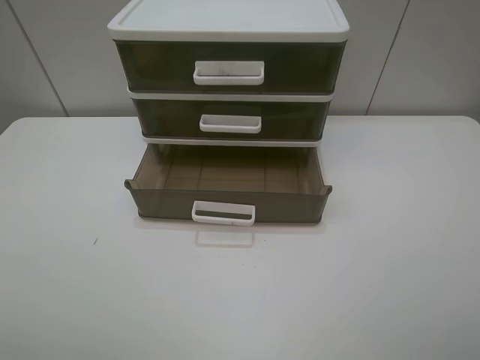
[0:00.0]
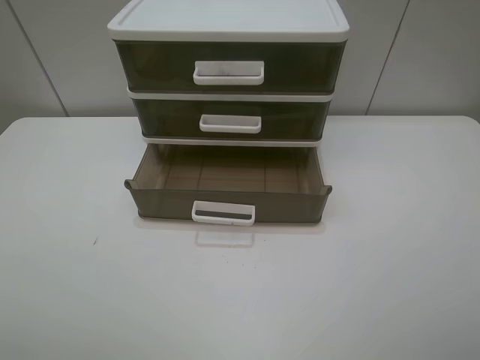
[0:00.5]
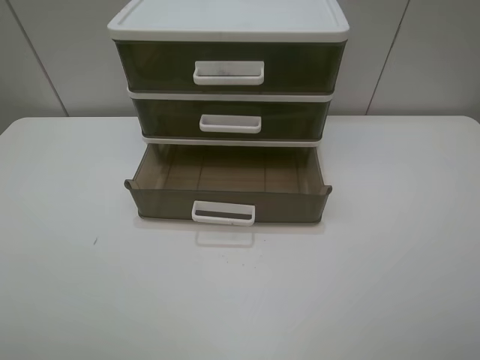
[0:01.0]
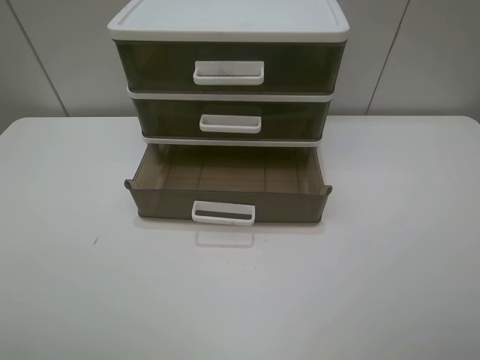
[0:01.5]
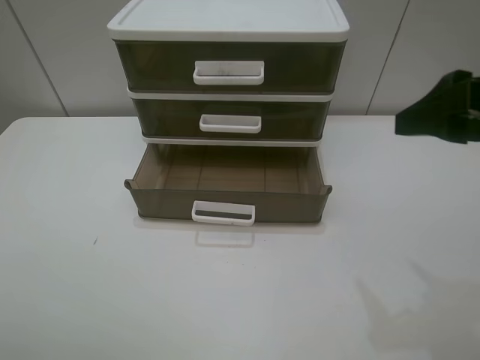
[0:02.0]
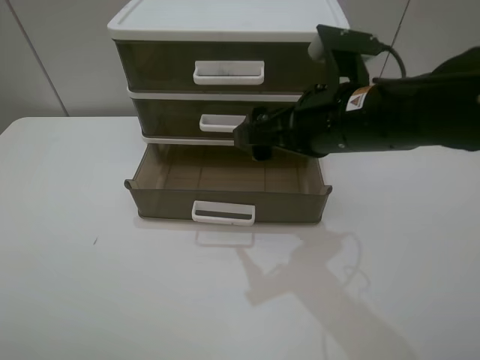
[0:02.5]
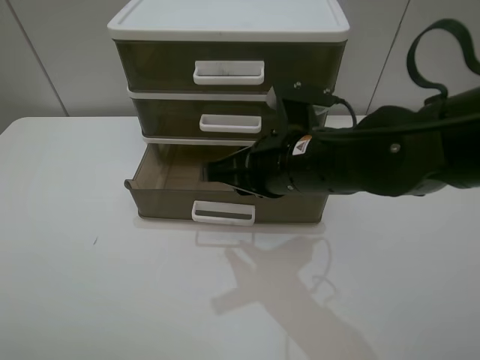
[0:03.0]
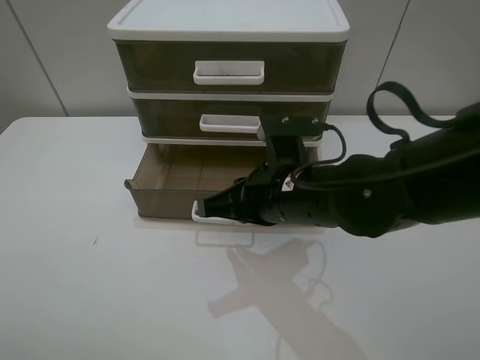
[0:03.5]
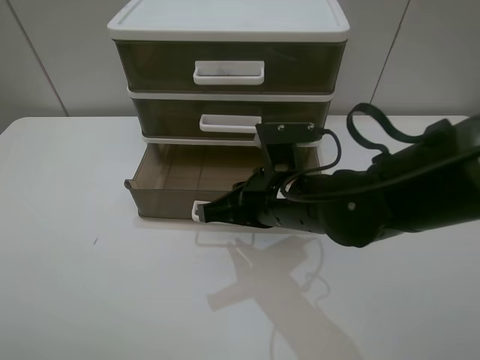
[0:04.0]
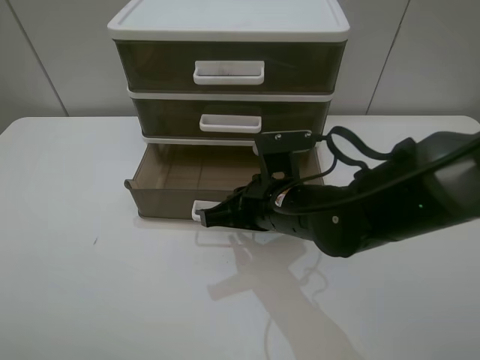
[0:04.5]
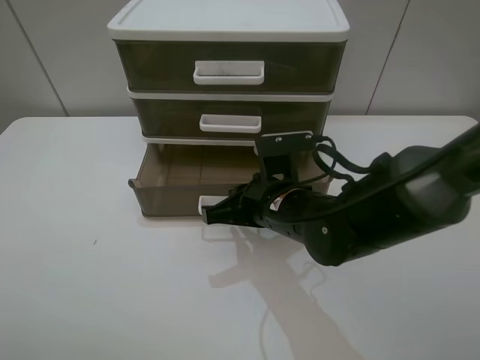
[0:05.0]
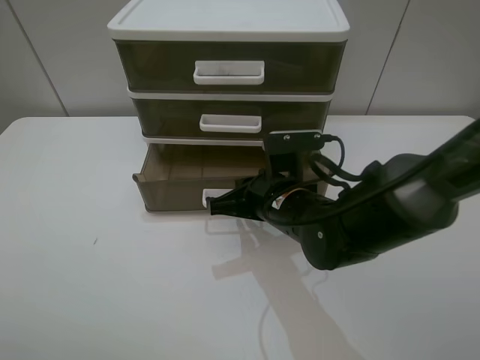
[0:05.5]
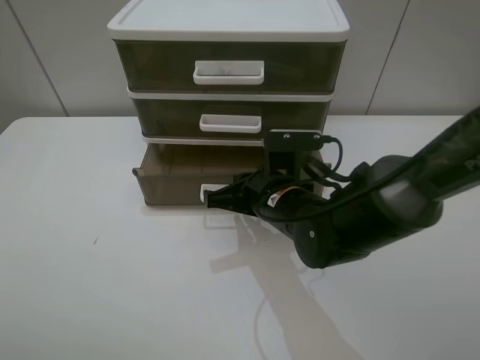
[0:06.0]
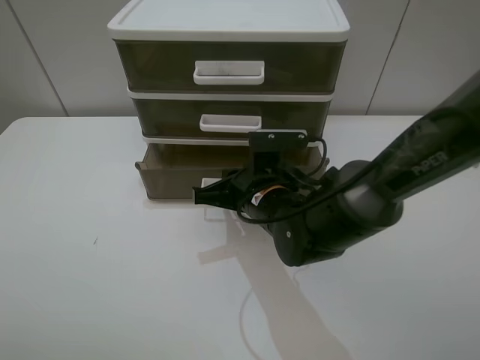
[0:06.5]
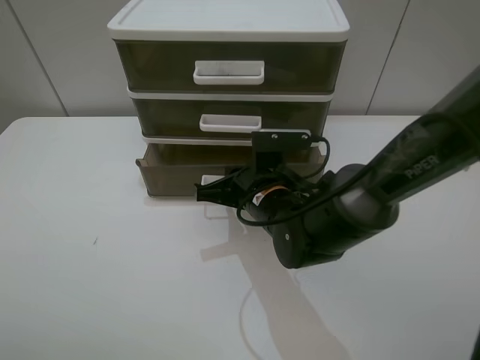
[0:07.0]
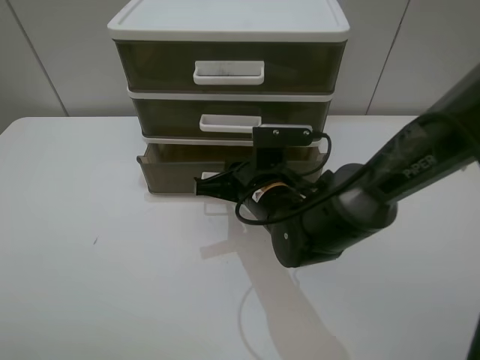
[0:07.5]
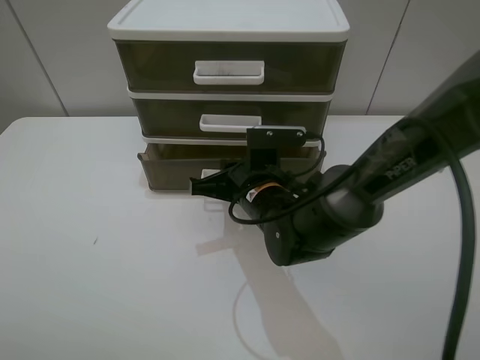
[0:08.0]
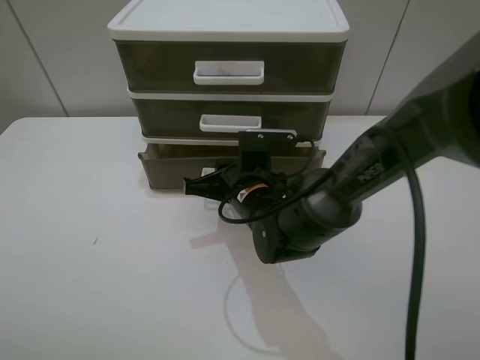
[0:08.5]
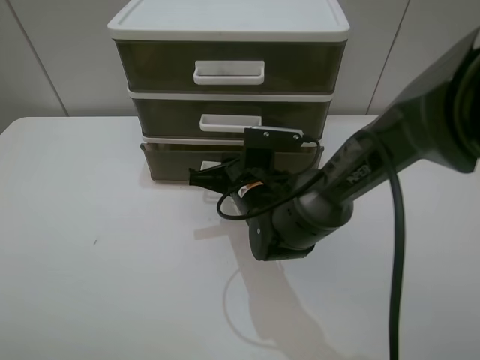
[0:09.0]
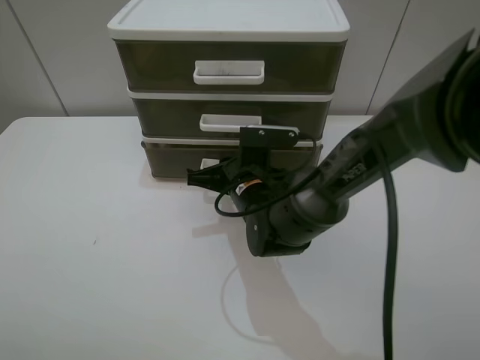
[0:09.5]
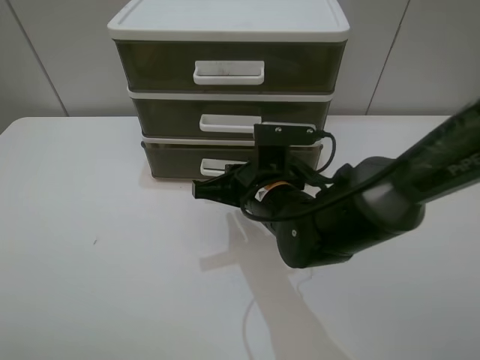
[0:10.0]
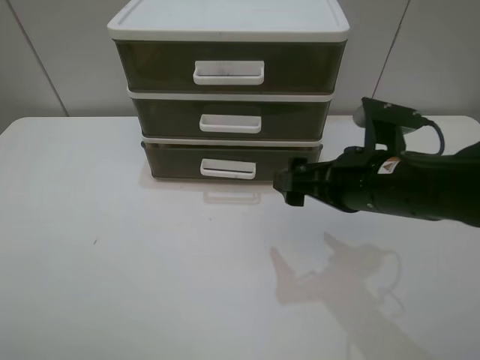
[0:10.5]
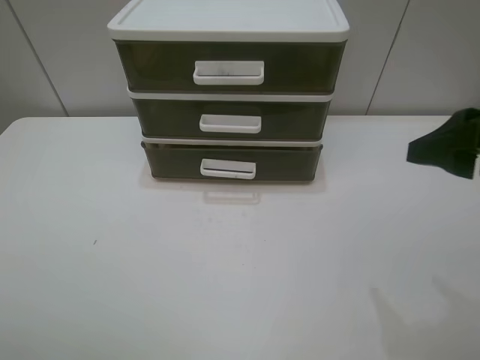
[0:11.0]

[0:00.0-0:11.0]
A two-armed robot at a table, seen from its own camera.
Task of the whole recording: close the bottom drawer.
Step, 0:00.0 to 0:04.5: Use the right gripper to contact the bottom layer of the storage cabinet.
Step, 0:05.0 to 0:09.5: Push the bottom drawer closed.
0:00.0 to 0:02.0: The right gripper moves forward, roughly 20 cm.
0:02.0 to 0:03.5: The right gripper heads to the left and downward, covering roughly 25 cm, and closes up.
0:03.5 to 0:05.5: The right gripper travels downward by some 5 cm.
0:05.5 to 0:07.5: There are only small adjustments of the grippers.
0:07.5 to 0:09.0: The grippers move only a little.
0:09.0 to 0:11.0: The right gripper moves to the right, upward and backward, approximately 35 cm, and opens.

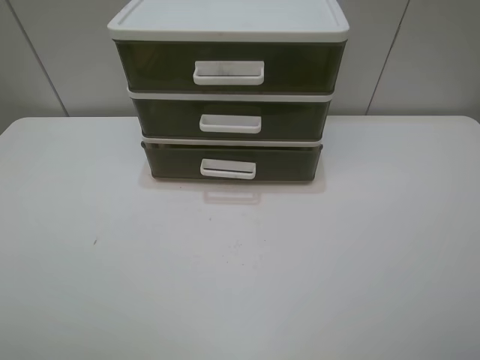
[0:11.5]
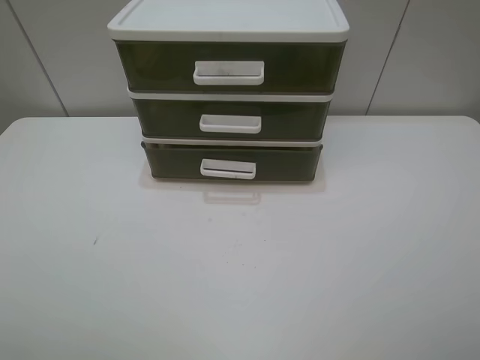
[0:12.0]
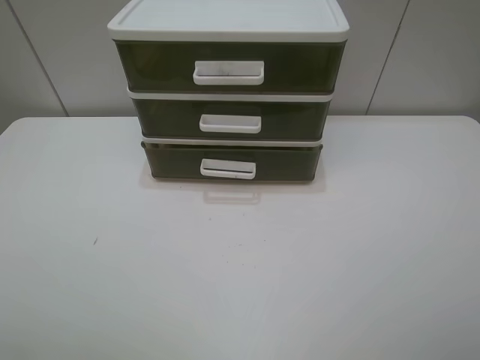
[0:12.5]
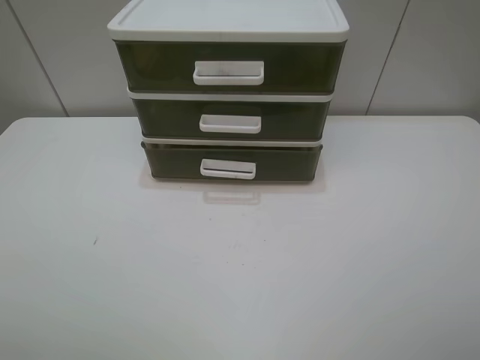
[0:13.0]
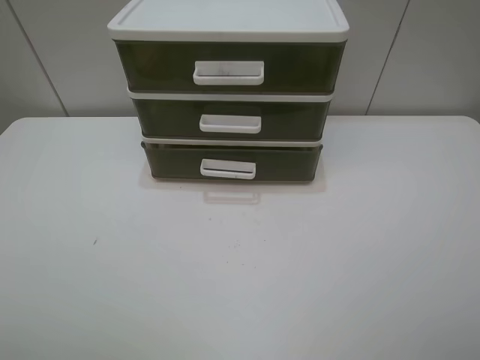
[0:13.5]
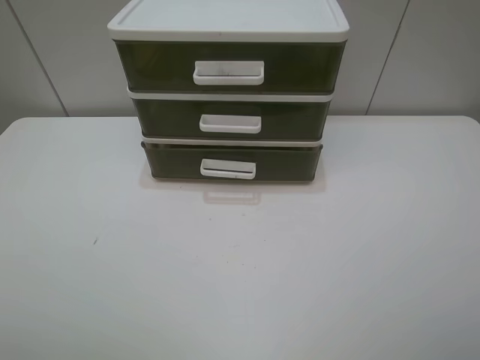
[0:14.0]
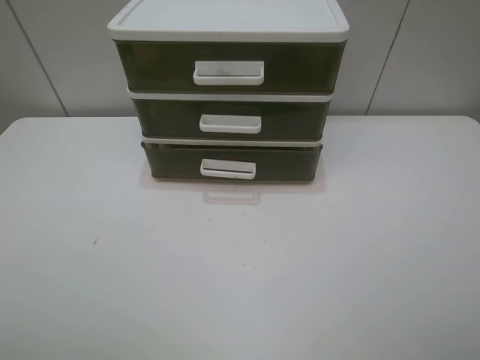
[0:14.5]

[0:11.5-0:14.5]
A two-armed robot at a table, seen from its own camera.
Task of the whole recording: close the bottom drawer.
0:13.0 to 0:14.5: Neither gripper changes place.
